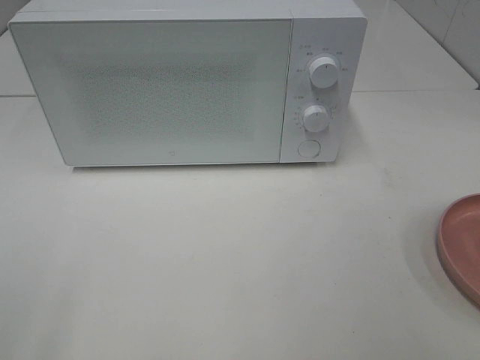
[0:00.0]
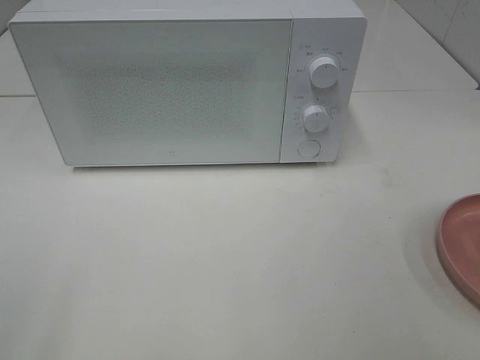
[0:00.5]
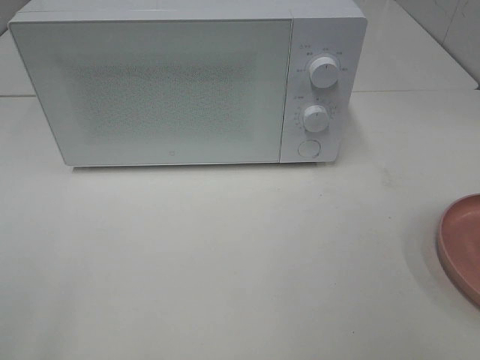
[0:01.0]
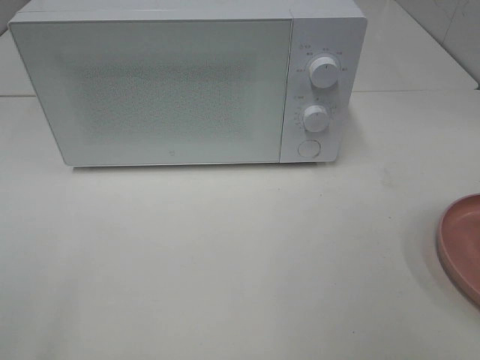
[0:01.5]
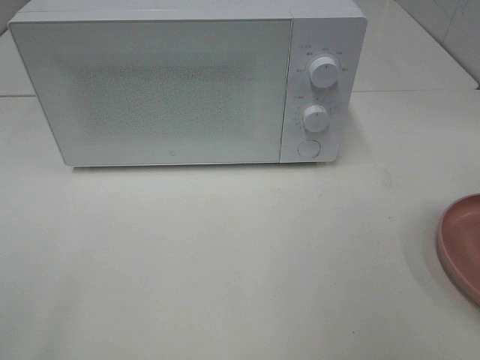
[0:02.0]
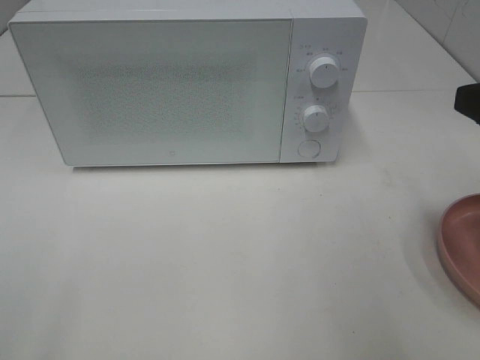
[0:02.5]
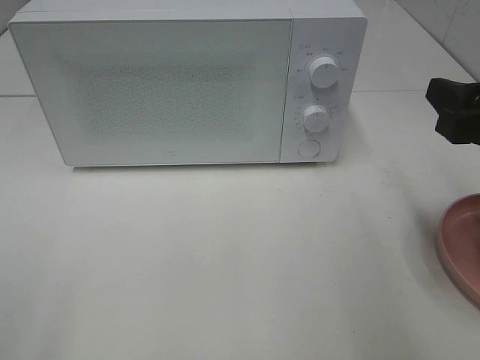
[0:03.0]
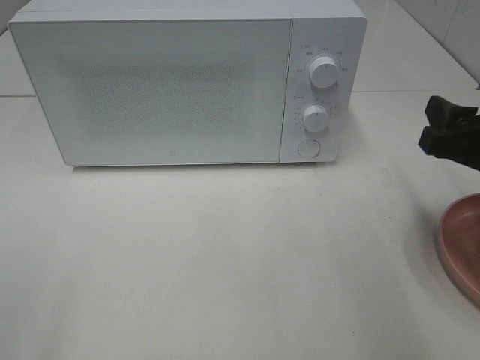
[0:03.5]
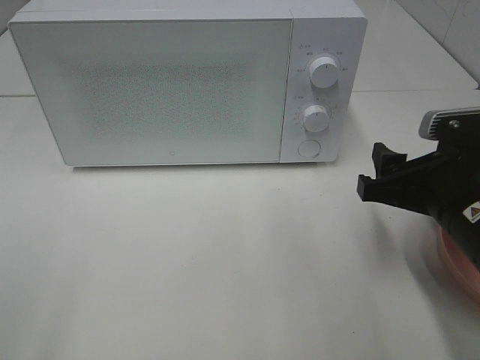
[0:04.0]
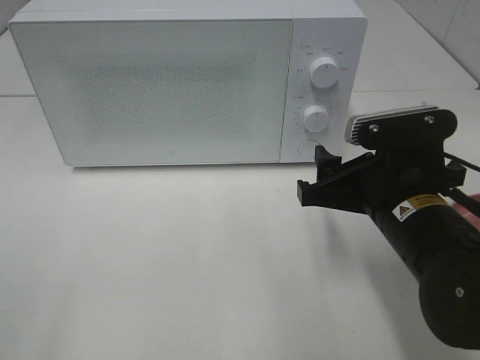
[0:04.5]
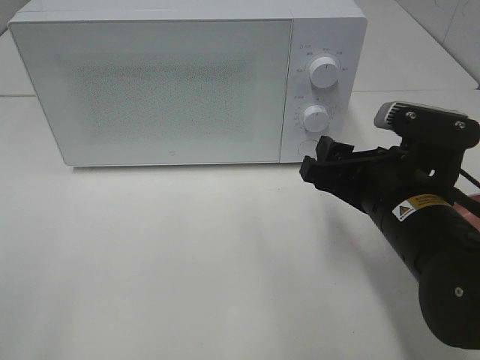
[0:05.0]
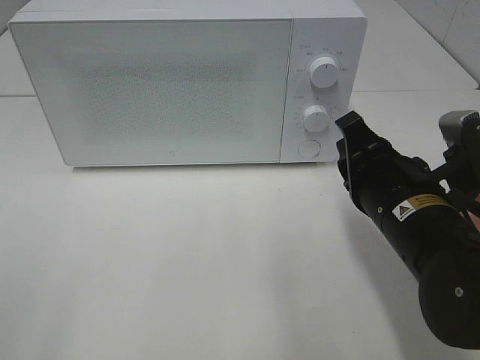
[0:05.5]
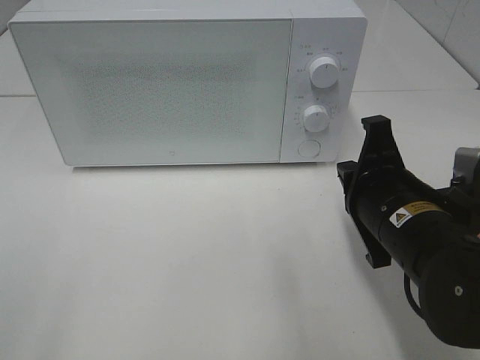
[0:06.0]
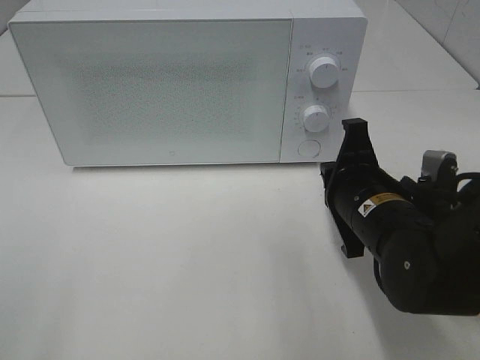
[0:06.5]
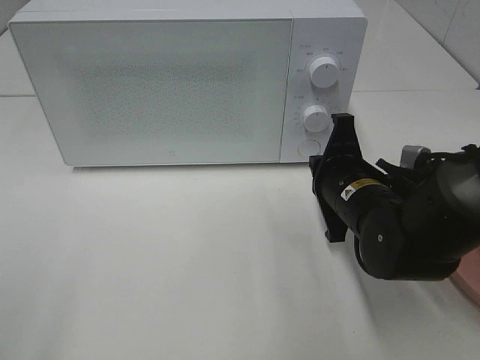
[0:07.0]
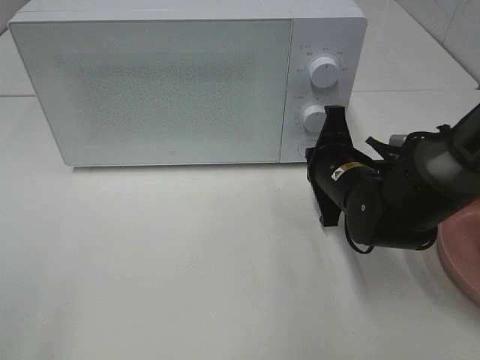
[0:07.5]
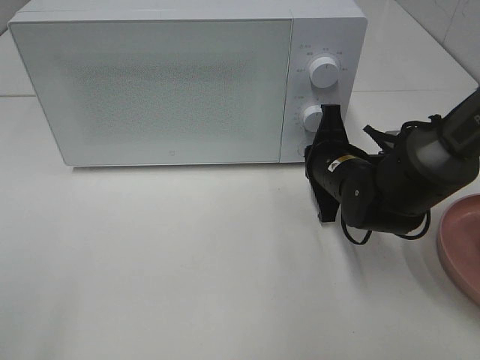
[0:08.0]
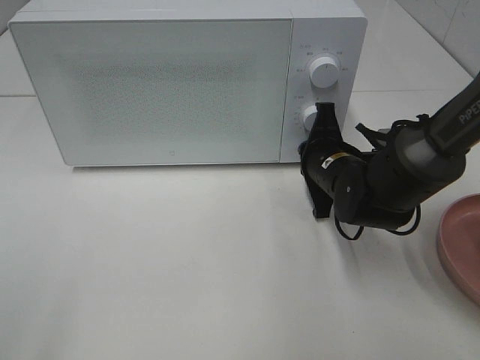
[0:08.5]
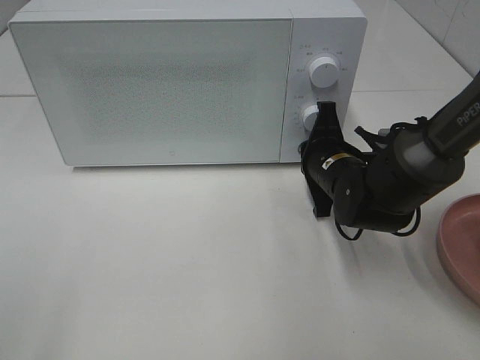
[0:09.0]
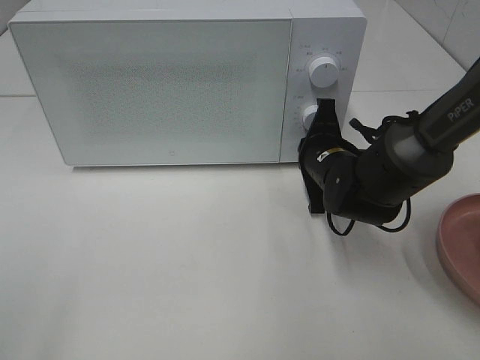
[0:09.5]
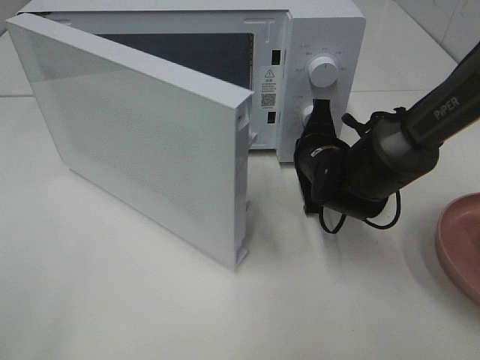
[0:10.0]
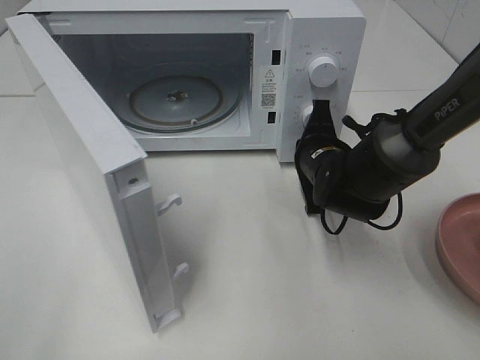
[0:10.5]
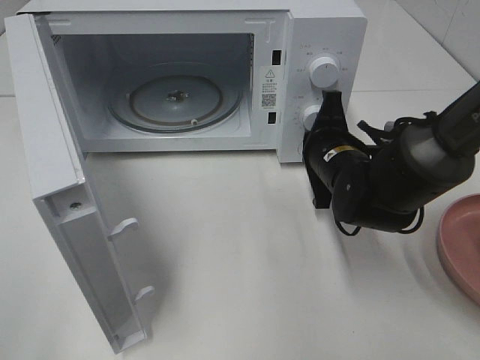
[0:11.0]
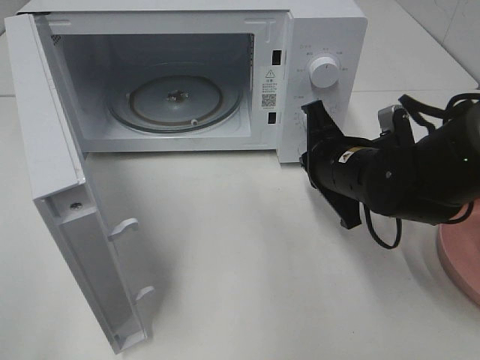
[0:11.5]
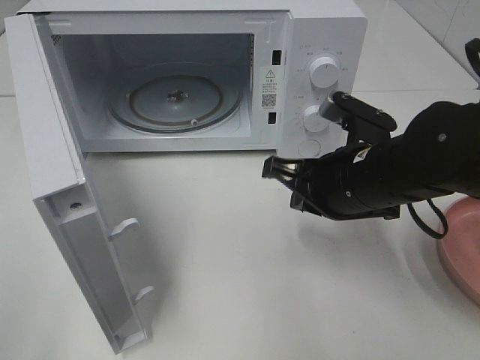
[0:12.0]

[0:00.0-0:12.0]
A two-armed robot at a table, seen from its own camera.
Task of the whole recording: Heat the burger.
Step, 0.0 to 11.0 s: Right hand: press the switch.
2.0 to 4.0 s: The right gripper moves downward and forward, approximately 15 cm.
4.0 to 6.0 s: The right gripper goes roughly 5 cm to the left, and closes.
6.0 to 8.0 s: The right gripper moves forward and downward, roughly 15 cm.
10.0 to 12.0 s: The right gripper heads backward and upward, covering roughly 10 cm.

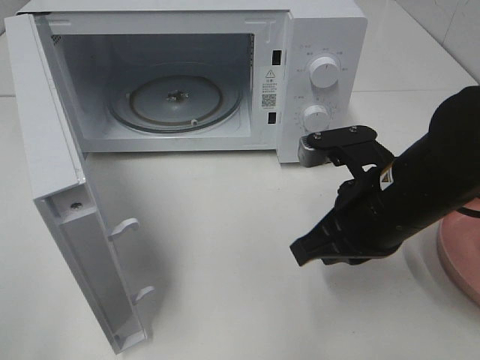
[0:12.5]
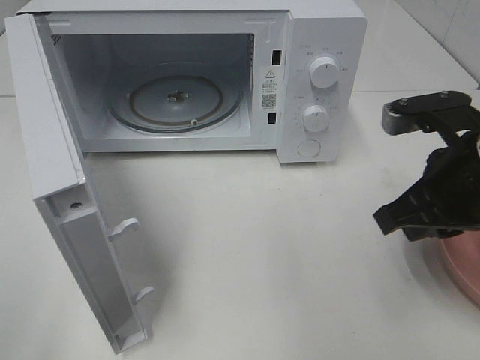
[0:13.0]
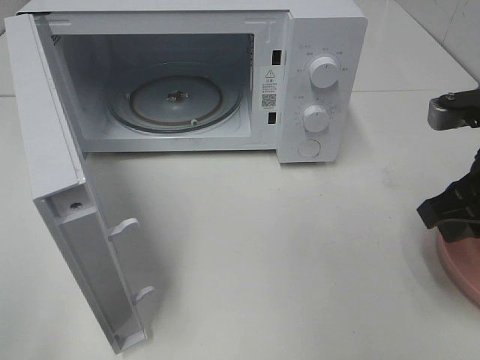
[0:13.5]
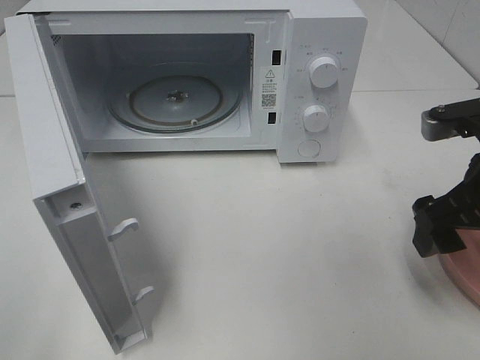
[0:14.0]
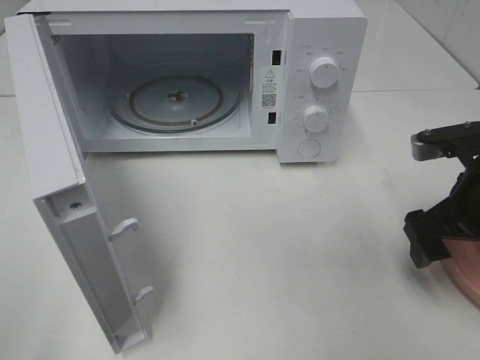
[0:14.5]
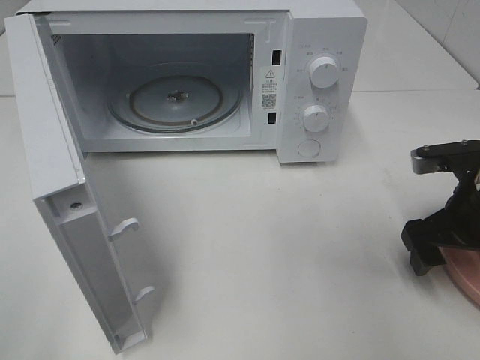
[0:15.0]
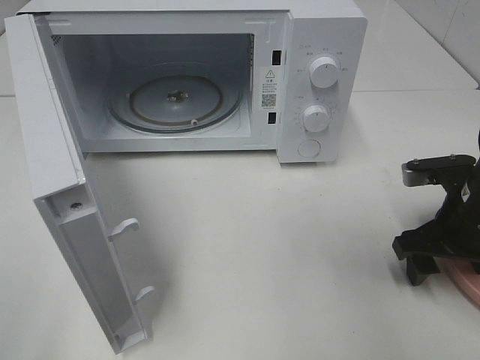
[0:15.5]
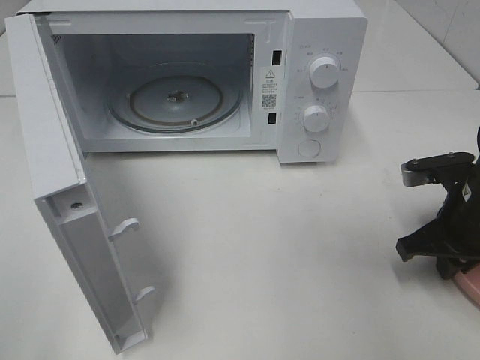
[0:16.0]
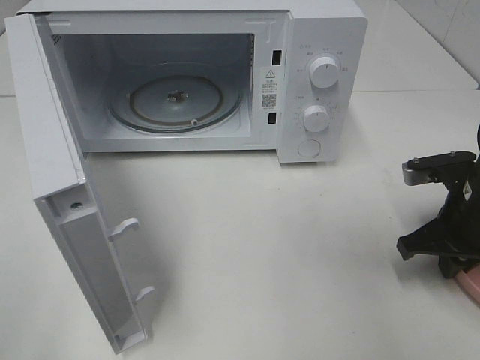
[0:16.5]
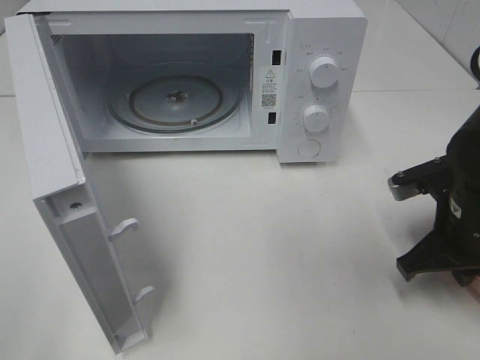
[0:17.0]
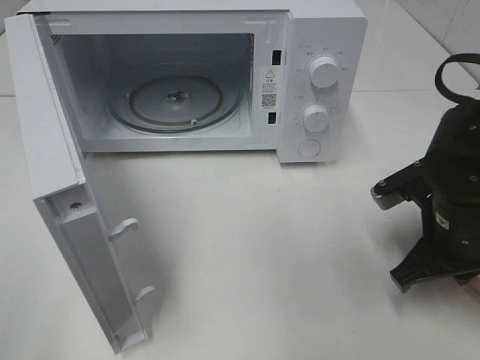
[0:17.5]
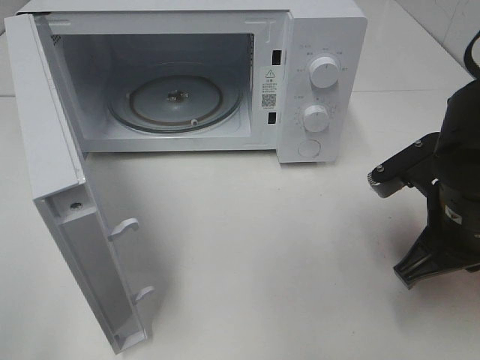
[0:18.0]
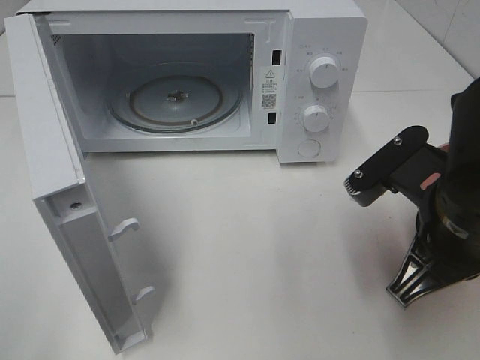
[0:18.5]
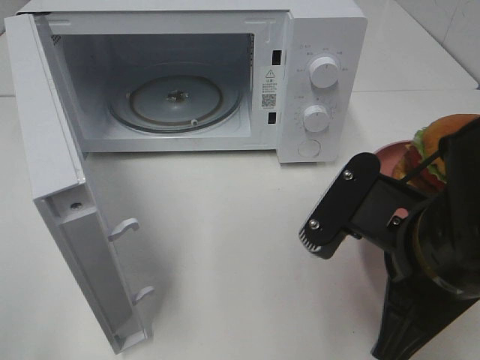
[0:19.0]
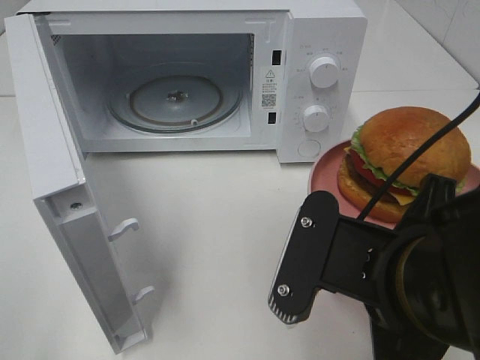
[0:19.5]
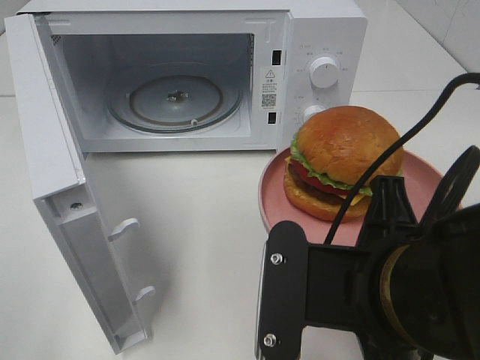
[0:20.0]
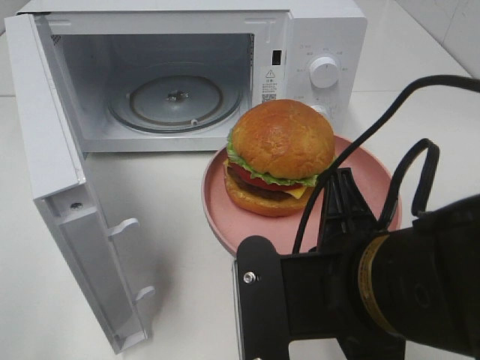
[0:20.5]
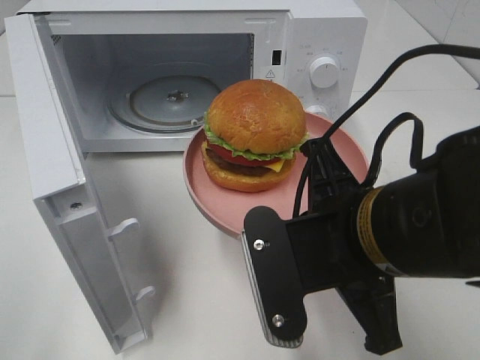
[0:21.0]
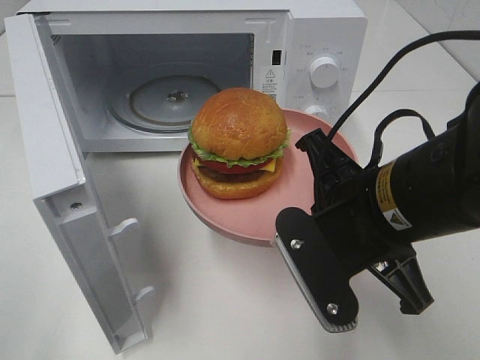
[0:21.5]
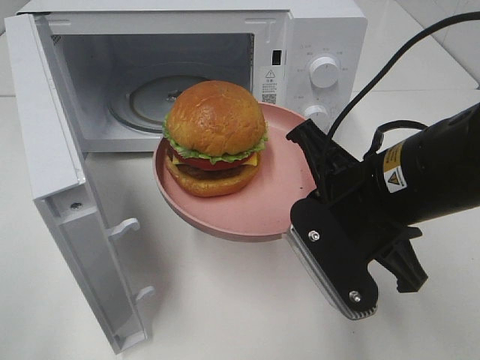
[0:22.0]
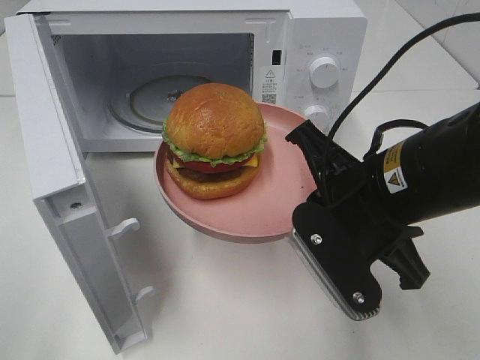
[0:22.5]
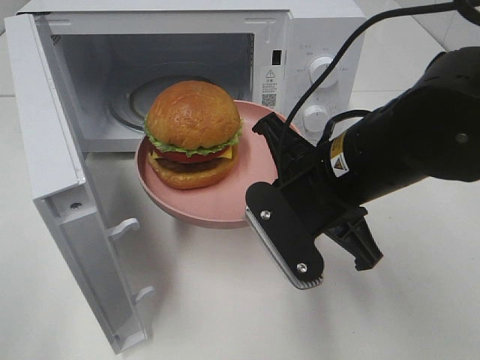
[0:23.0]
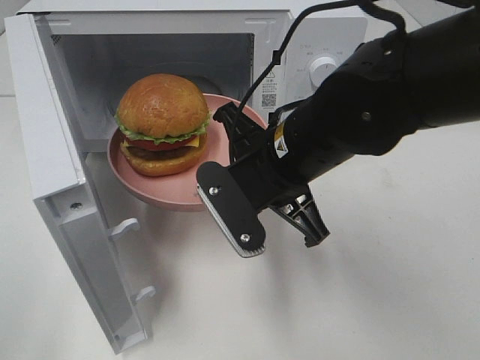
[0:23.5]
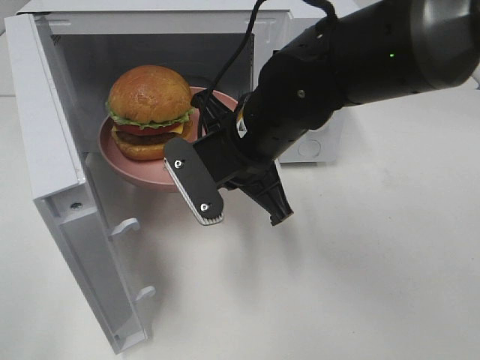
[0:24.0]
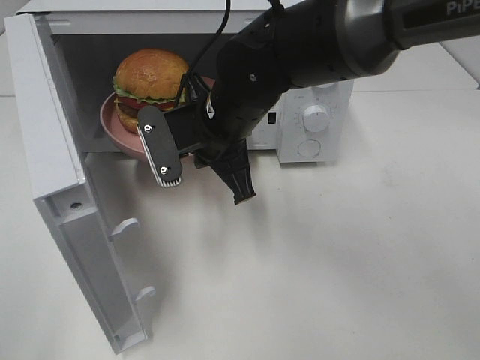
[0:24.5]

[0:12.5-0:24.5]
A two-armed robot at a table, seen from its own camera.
Task of the whole recording: Heat the burger.
Step, 12.5 to 16.5 s: Right hand: grab the plate with the hamburger.
12.5 to 14.5 s: The right gripper heads to the right, covering about 10 cm, and opens.
14.5 to 16.5 s: The right gripper closes up.
16.5 to 18.5 s: The right gripper heads to the left, backward and upward, covering about 15 cm.
18.5 to 20.5 s: The right gripper moves to the left and backward, approximately 10 cm.
20.5 to 22.5 s: The right gripper shifts some 10 cm forward.
22.5 to 24.5 s: The right gripper goes roughly 20 cm forward and to the left.

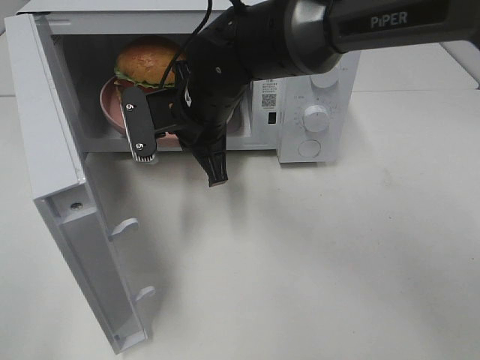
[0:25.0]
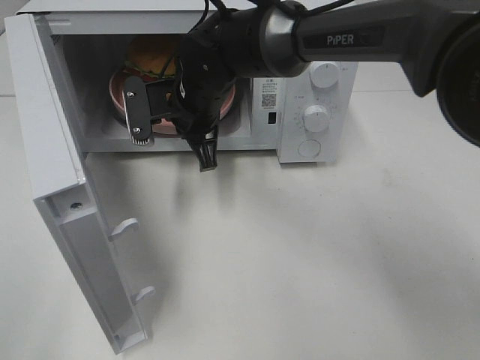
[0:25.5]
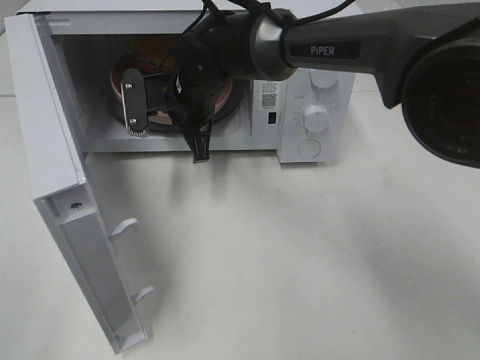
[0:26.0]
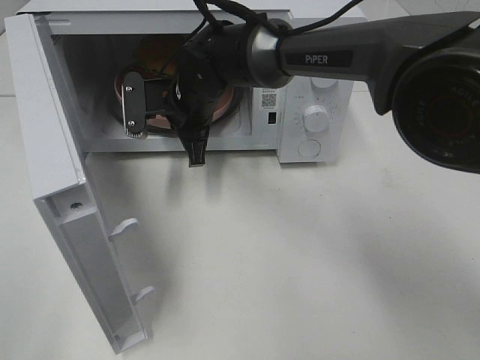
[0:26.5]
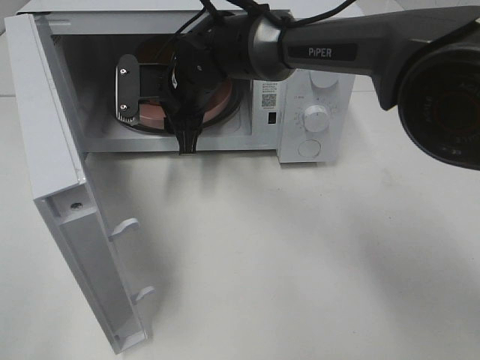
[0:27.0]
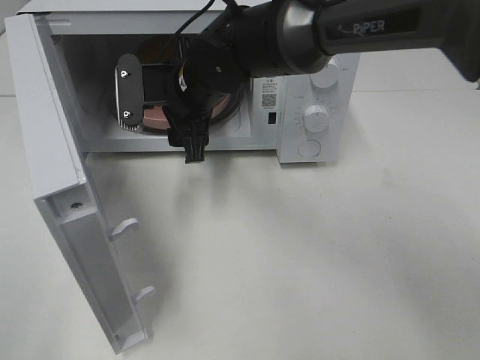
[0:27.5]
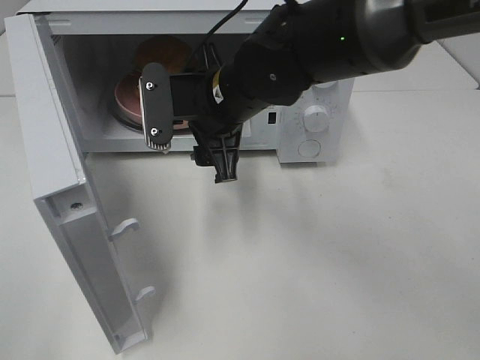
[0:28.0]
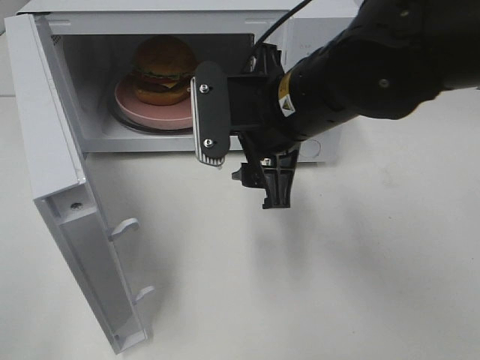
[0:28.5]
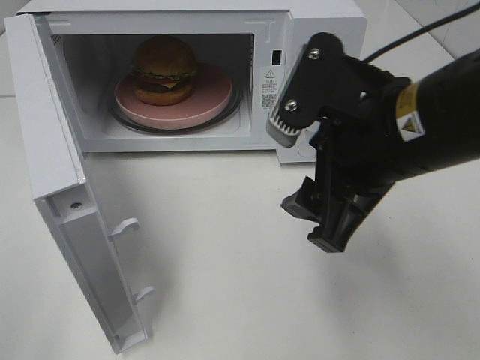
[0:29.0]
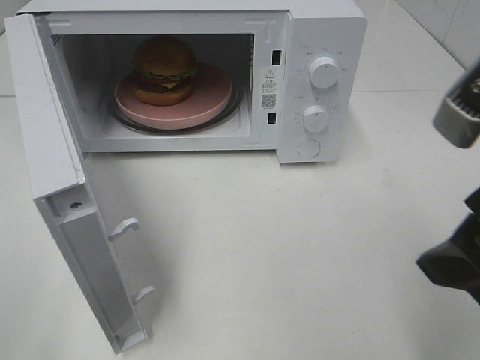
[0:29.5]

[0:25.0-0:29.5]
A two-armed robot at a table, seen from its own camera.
Task of the whole recording: Heat the burger.
25.0 to 27.0 s: The right gripper moves forward, approximately 5 cm, and opens its fingers.
27.0 to 29.5 s: The right gripper moves backward, to the right and upward, about 40 cm.
